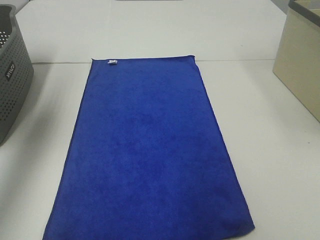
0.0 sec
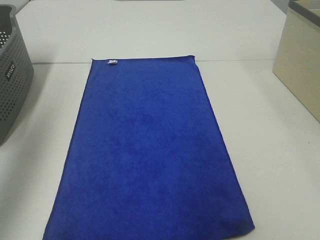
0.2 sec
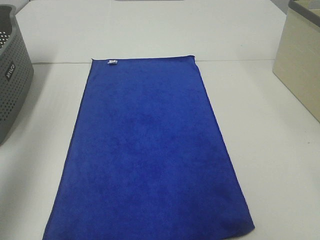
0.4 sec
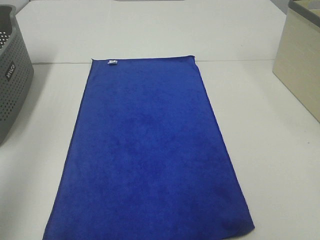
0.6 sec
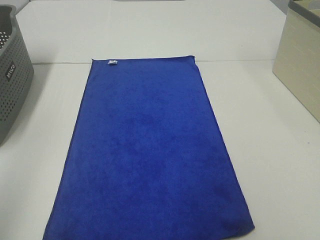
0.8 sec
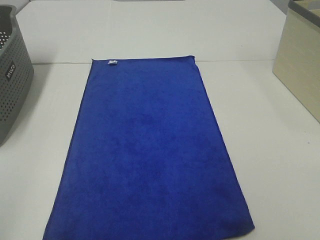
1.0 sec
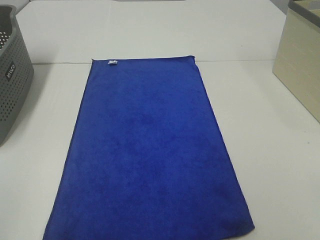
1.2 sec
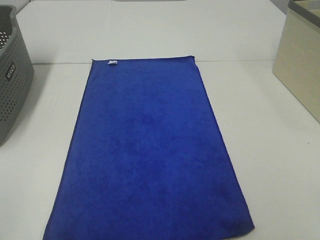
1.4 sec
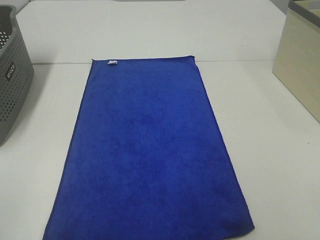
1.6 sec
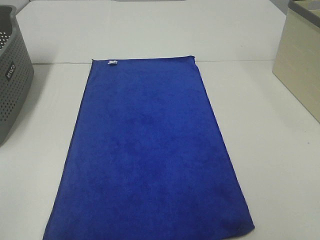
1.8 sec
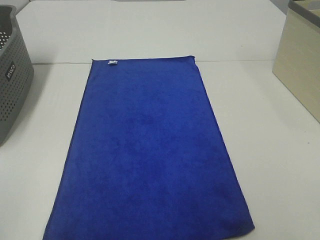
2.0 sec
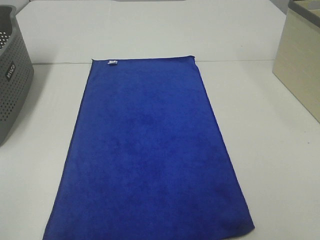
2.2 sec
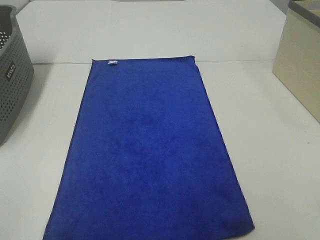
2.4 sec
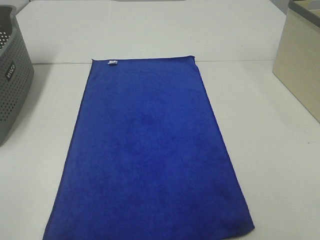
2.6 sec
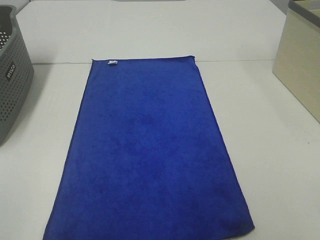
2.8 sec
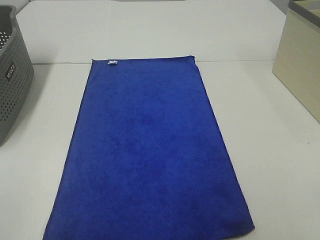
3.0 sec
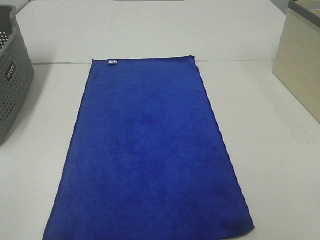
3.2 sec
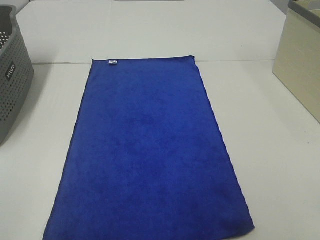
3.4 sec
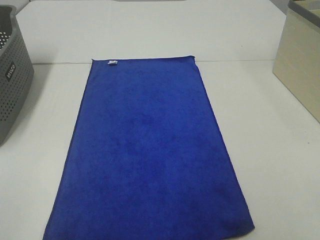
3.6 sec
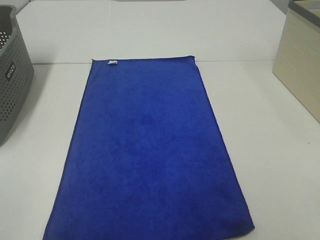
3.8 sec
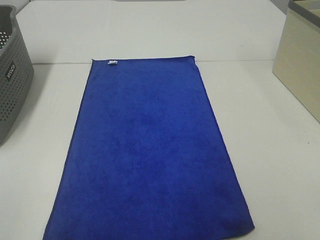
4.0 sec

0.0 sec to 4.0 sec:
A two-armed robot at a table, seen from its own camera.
Task of the whole recording: Remove the towel and place it.
0.0 sec to 1.4 sec: The left gripper moves backward, some 35 cm.
2.6 sec to 4.0 sec: Neither gripper changes place.

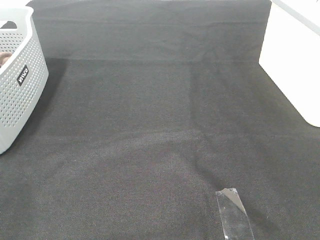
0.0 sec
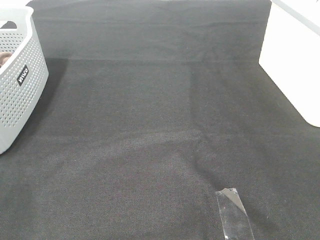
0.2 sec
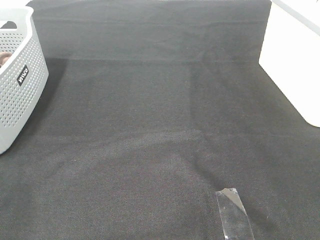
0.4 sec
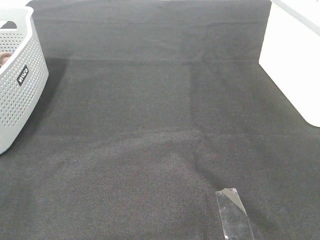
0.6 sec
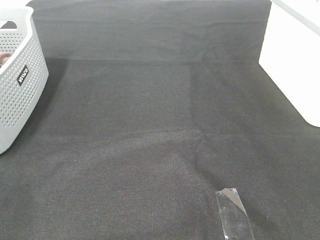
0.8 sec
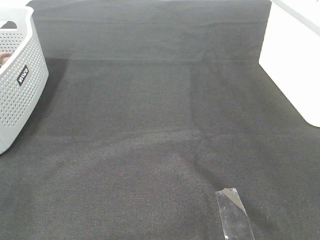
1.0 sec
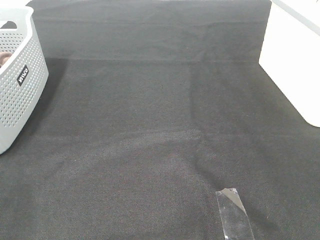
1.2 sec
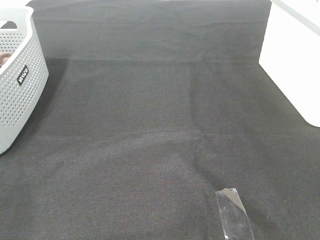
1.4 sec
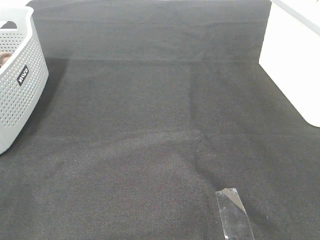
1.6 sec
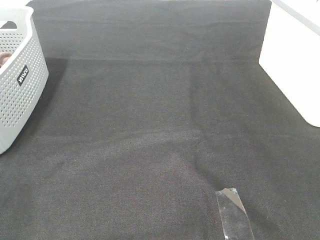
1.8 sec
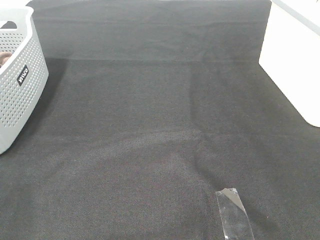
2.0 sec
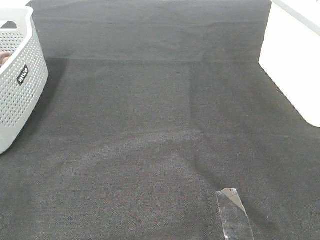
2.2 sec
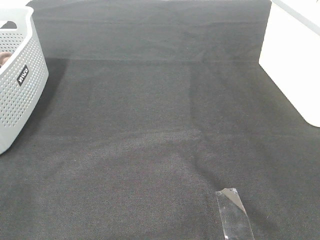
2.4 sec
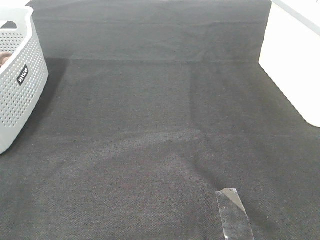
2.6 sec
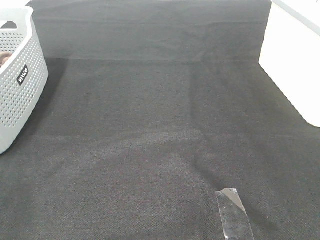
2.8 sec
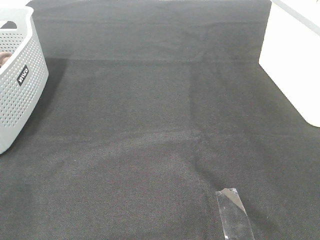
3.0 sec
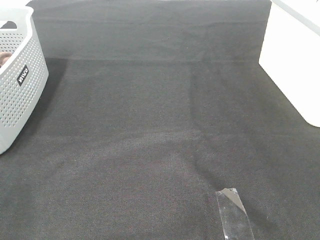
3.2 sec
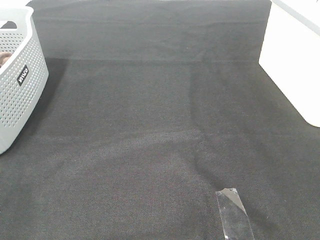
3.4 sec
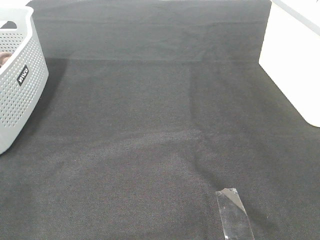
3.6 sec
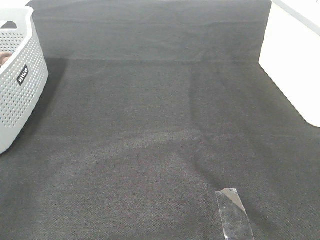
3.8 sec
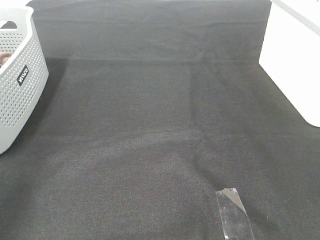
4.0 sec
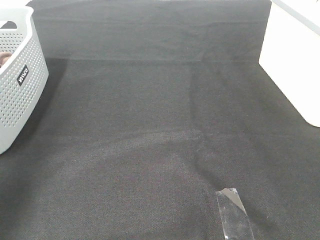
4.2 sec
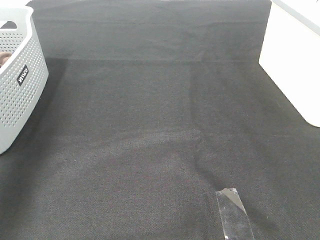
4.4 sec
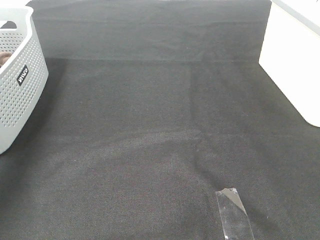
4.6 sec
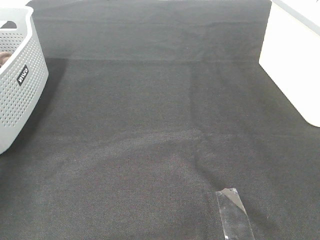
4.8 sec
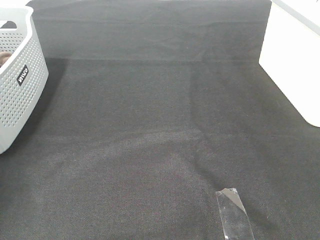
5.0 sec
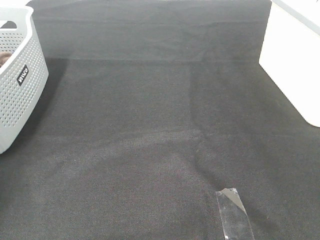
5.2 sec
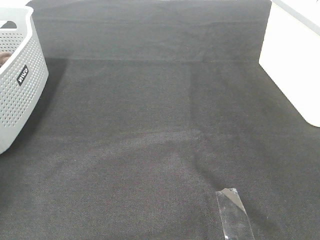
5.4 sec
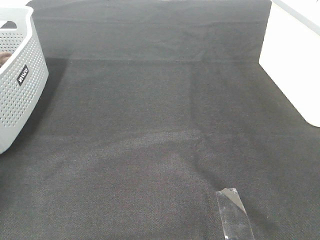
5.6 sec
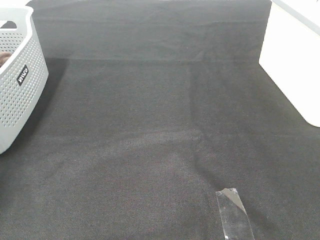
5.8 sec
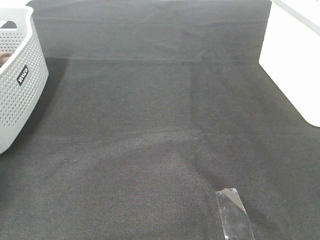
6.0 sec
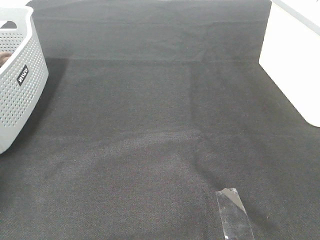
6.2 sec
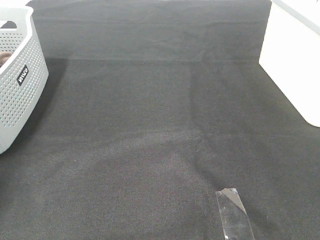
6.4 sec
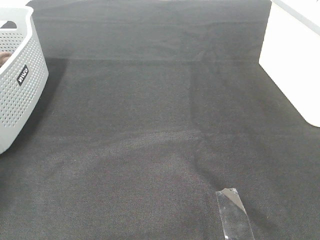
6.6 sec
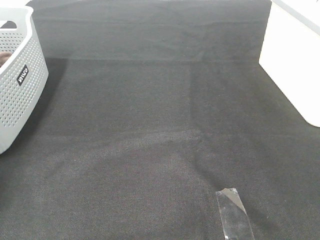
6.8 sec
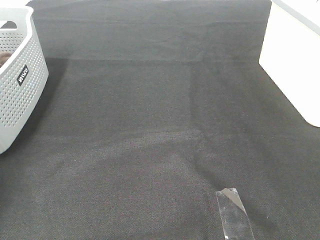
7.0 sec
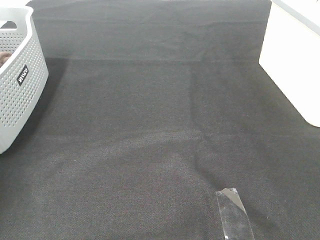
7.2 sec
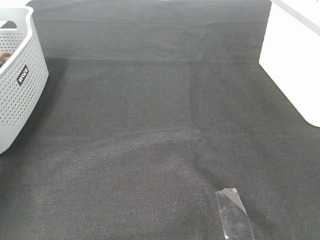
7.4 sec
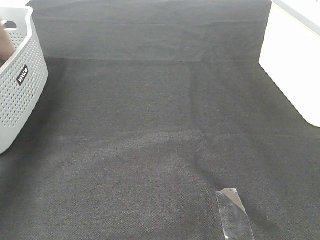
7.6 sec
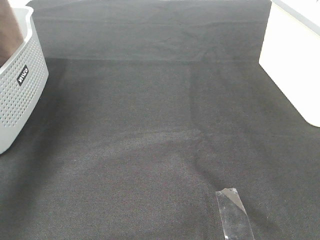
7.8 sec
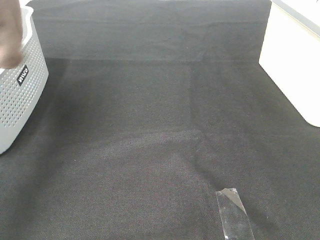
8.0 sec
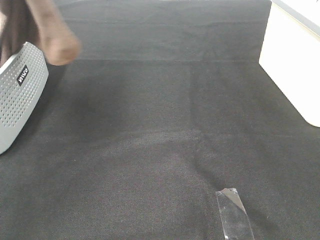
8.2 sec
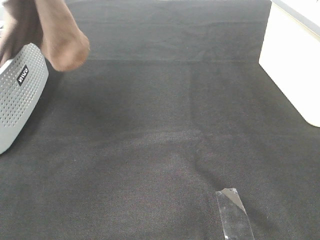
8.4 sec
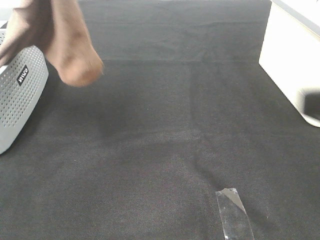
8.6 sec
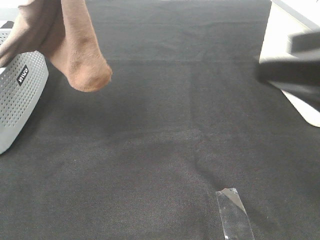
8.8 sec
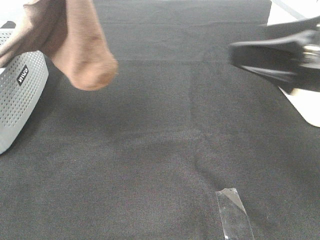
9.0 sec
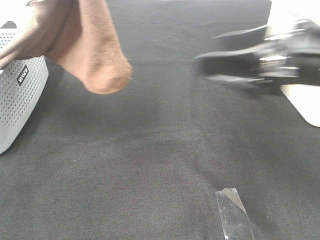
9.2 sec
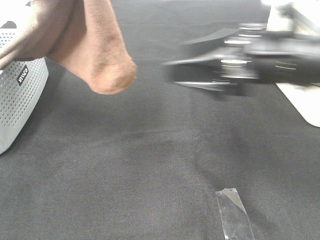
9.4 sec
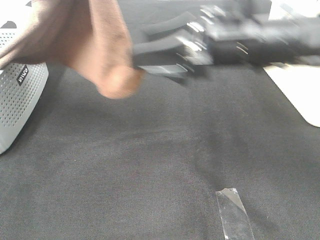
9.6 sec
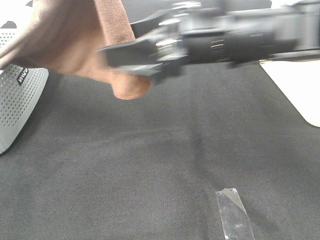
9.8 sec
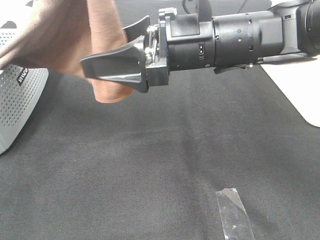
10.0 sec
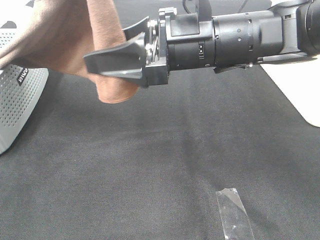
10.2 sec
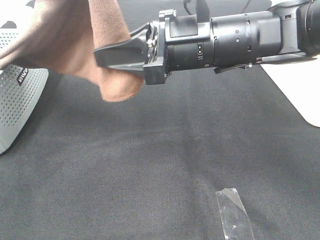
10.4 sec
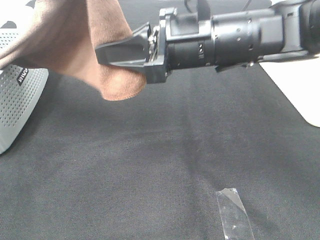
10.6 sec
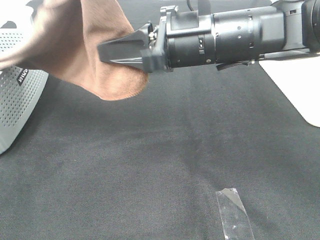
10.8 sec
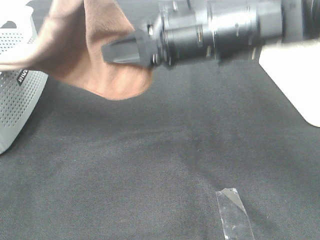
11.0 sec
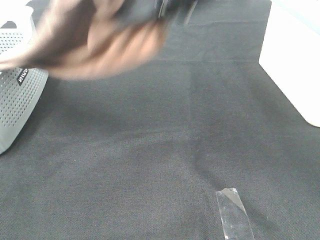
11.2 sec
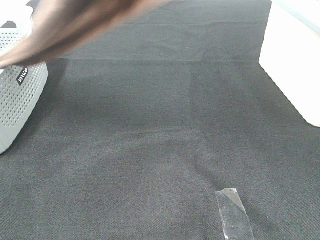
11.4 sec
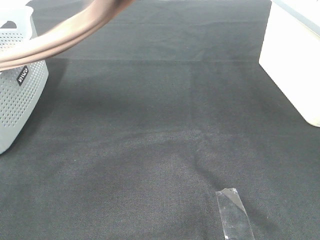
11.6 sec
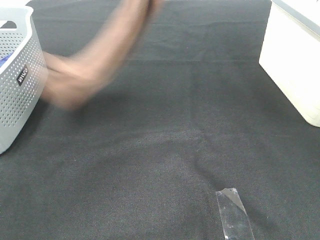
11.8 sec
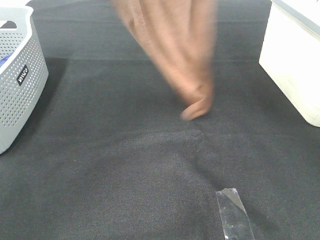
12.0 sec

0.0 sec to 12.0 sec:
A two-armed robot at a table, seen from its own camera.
Task of the whole recording: Remove the towel and place it.
Step, 7.8 sec to 10.2 sec: Right hand: grab a corner of the brown towel and straighten it.
0.0 sec to 3.0 sec: Both grippers stay about where they are.
3.0 sec to 4.4 sec: The left gripper moves forward, approximately 30 cm.
4.4 sec to 6.0 sec: The left gripper shifts approximately 25 cm downward, forward and to the left.
6.0 sec to 7.6 sec: The left gripper travels upward and to the right by roughly 25 cm, and closes its fingers.
7.6 sec to 9.0 sec: The left gripper moves to the right and backward, roughly 20 cm. Meanwhile the right gripper goes about 20 cm forward.
9.0 sec to 10.4 sec: The right gripper is displaced to the left and forward by roughly 15 cm, and closes.
10.4 sec to 12.0 sec: The right gripper shifts about 25 cm upward; the left gripper travels forward by some 10 cm.

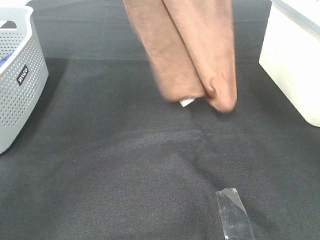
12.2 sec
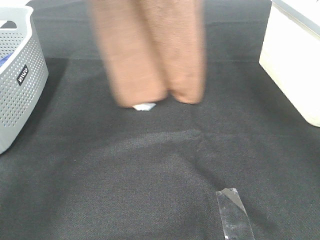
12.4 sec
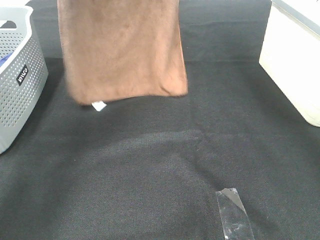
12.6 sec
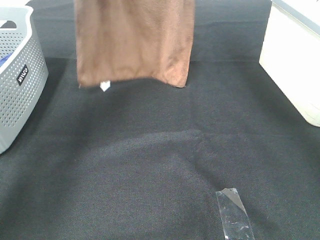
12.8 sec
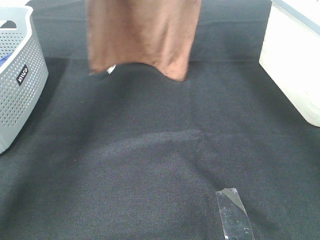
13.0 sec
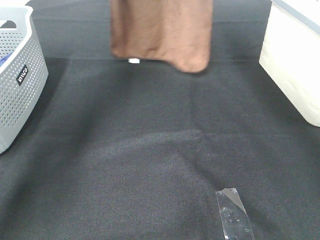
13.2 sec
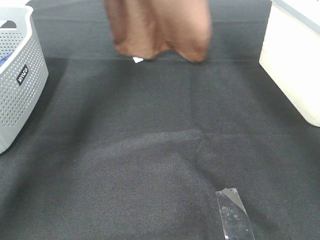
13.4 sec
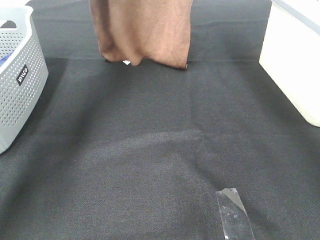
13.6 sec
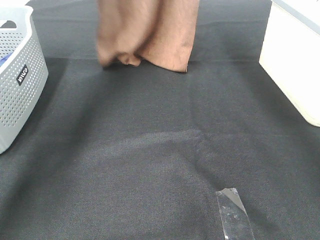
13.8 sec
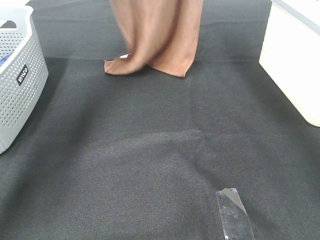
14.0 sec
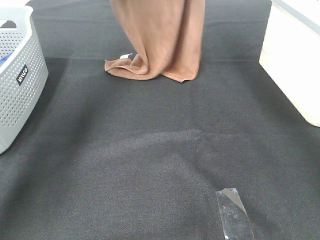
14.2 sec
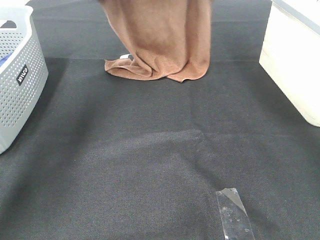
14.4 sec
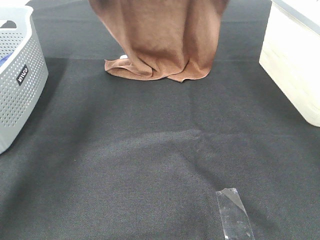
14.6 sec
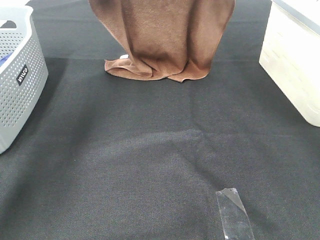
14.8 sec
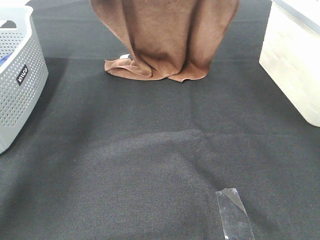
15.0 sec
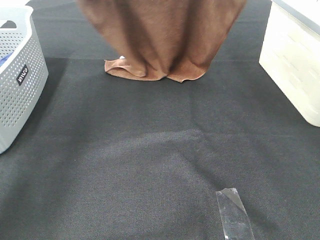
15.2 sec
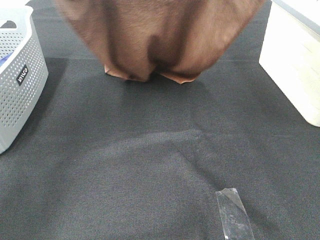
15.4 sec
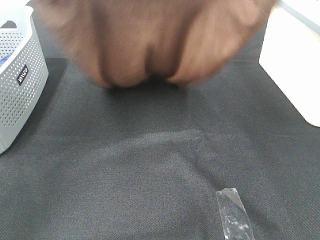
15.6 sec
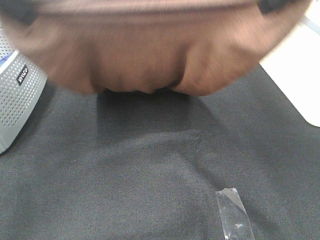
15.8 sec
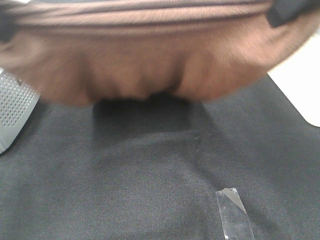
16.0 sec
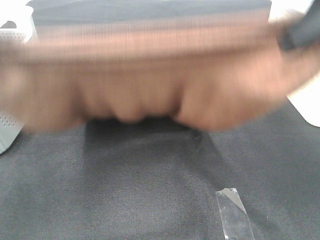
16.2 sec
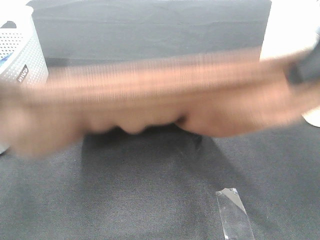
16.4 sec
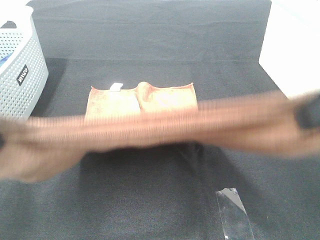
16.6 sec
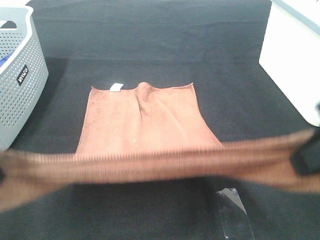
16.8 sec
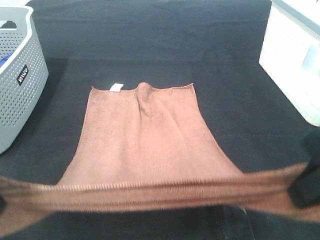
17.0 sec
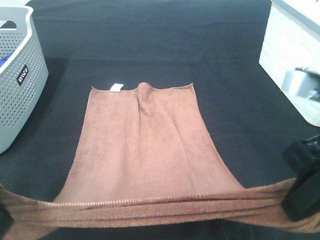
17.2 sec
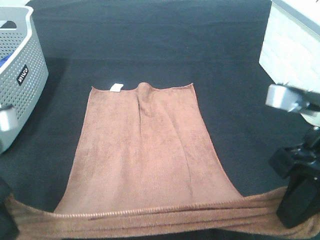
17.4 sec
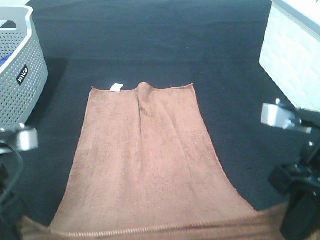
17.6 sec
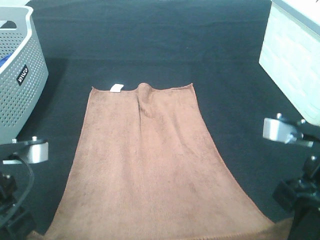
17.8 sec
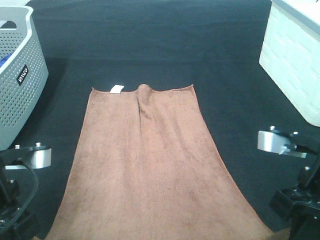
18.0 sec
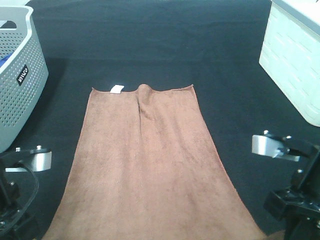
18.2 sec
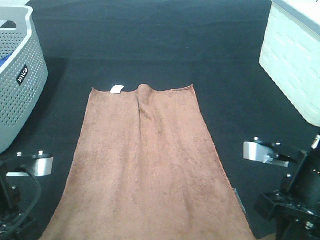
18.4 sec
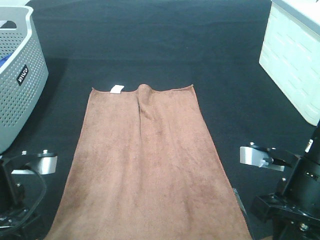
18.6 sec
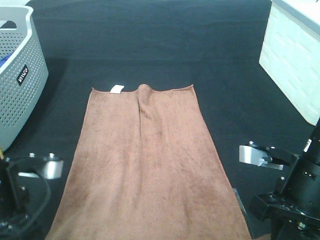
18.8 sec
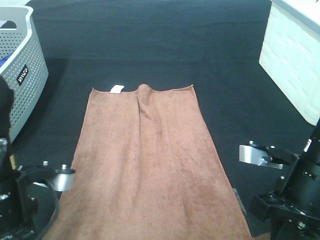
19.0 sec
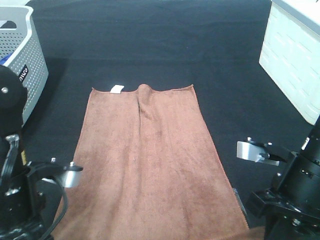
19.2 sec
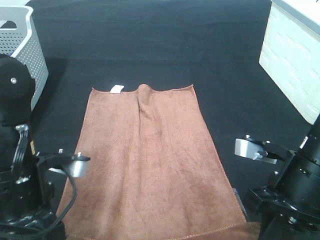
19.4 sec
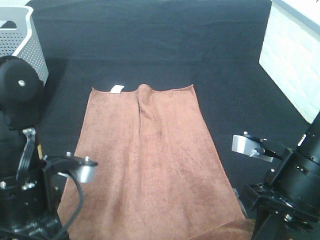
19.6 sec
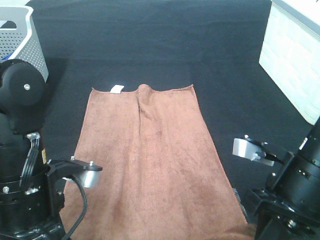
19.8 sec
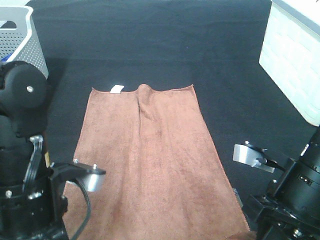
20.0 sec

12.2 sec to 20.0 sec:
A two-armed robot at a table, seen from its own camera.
Task of the whole recording: Remove the towel and place it.
Step, 12.2 sec to 16.4 sec: Left hand: spread the brown towel flat on the table.
Step, 12.2 sec to 16.4 sec: Right hand: spread the brown towel flat on the table.
12.2 sec to 13.8 sec: Both grippers travel together forward and downward, approximately 15 cm.
13.8 sec to 15.4 sec: Both grippers move backward, some 15 cm.
15.4 sec to 16.8 sec: The two grippers go approximately 25 cm backward and downward.
16.8 sec to 18.4 sec: The grippers both shift downward by approximately 15 cm.
18.4 sec to 20.0 sec: The left gripper is displaced to the right by approximately 5 cm.
